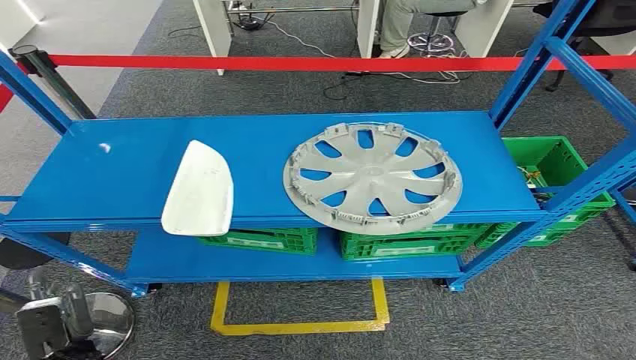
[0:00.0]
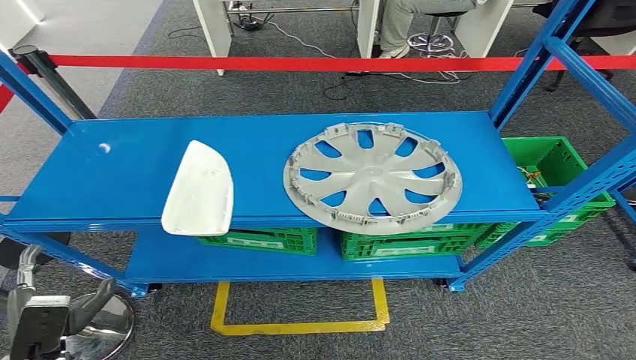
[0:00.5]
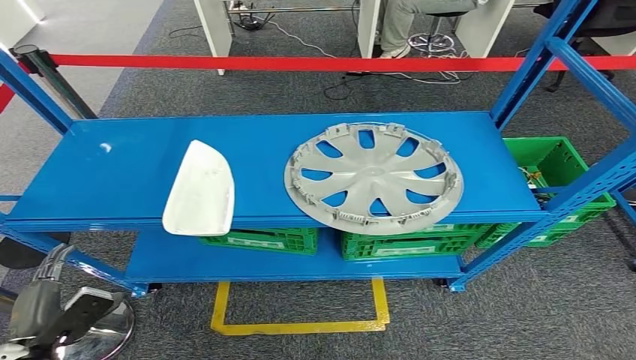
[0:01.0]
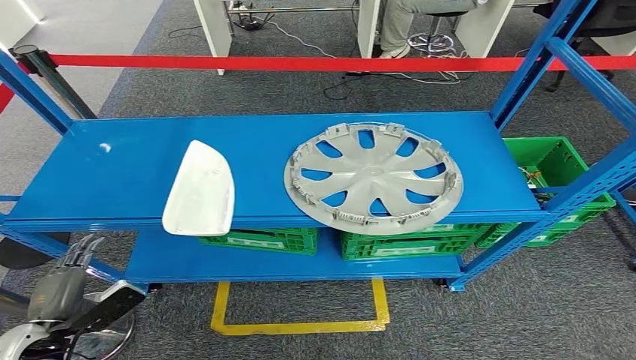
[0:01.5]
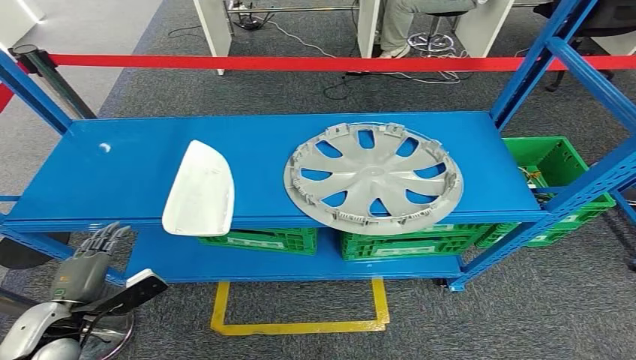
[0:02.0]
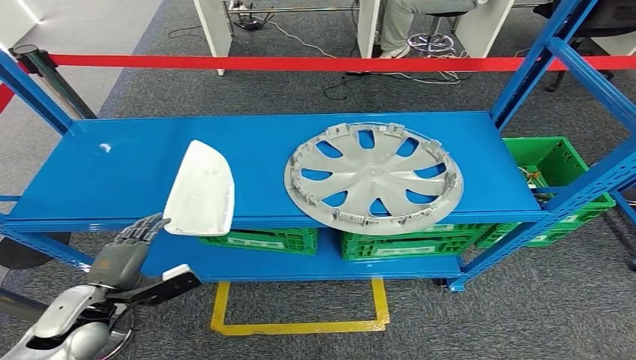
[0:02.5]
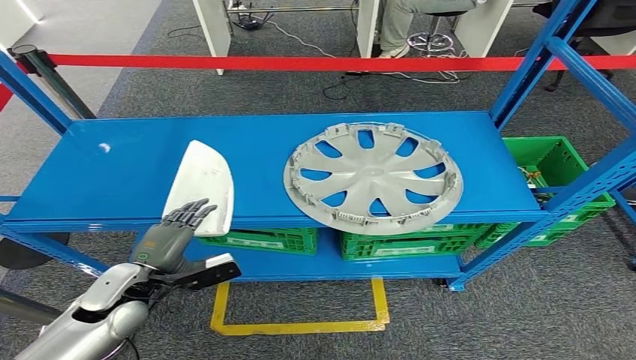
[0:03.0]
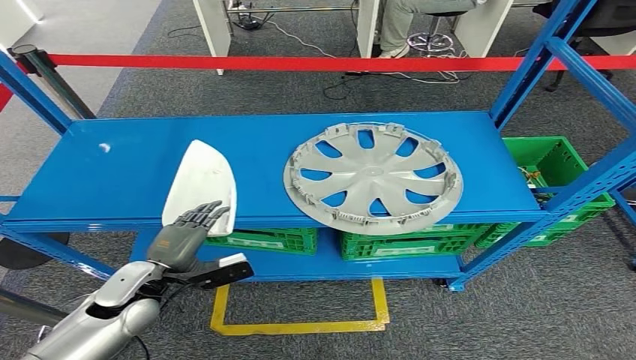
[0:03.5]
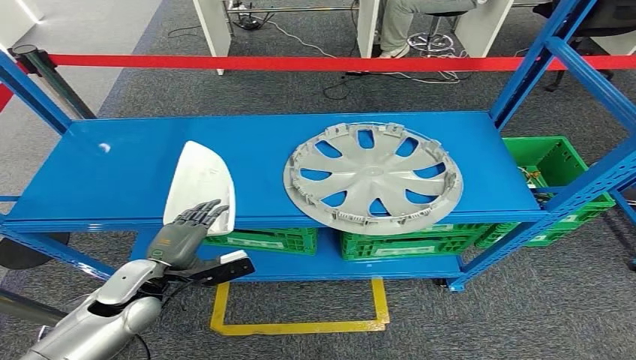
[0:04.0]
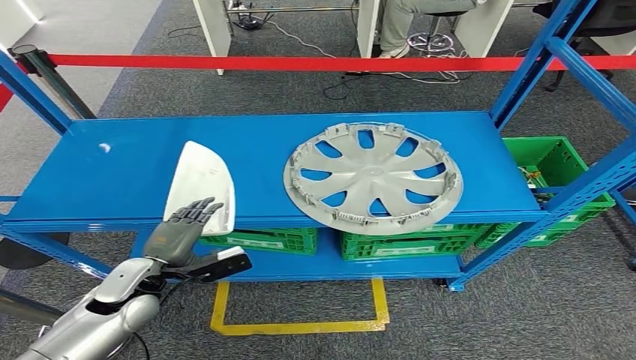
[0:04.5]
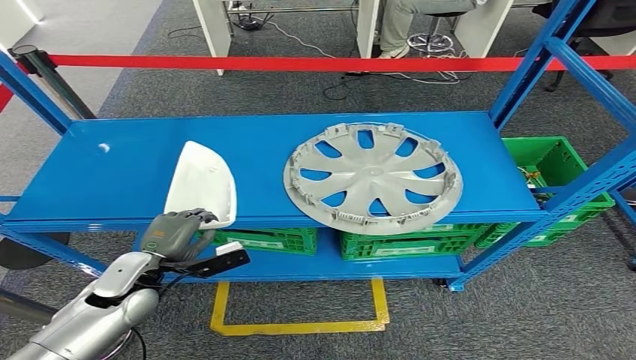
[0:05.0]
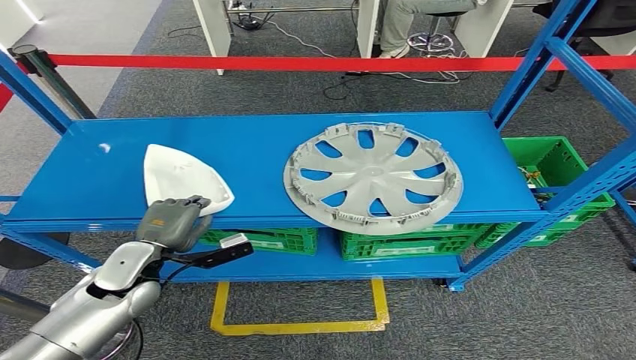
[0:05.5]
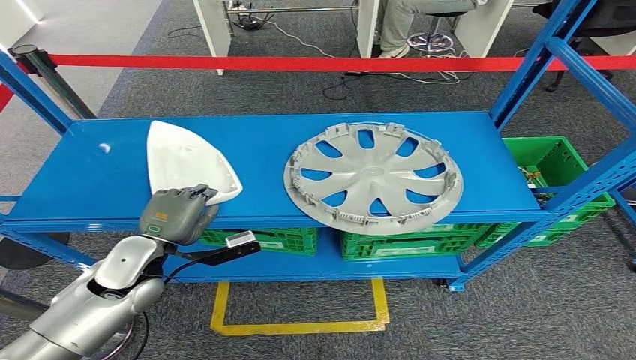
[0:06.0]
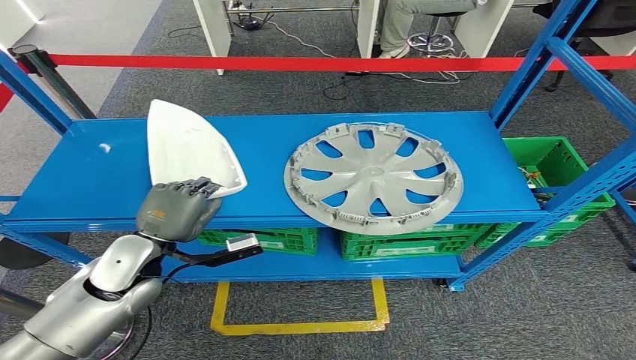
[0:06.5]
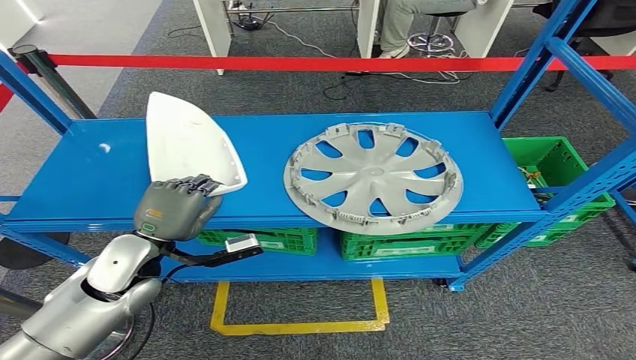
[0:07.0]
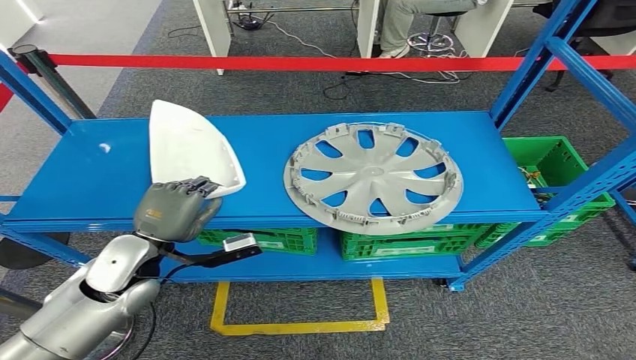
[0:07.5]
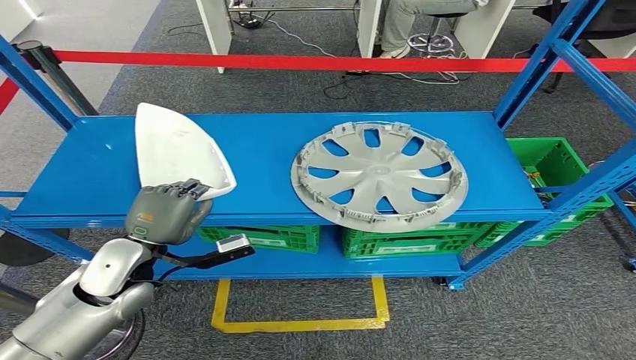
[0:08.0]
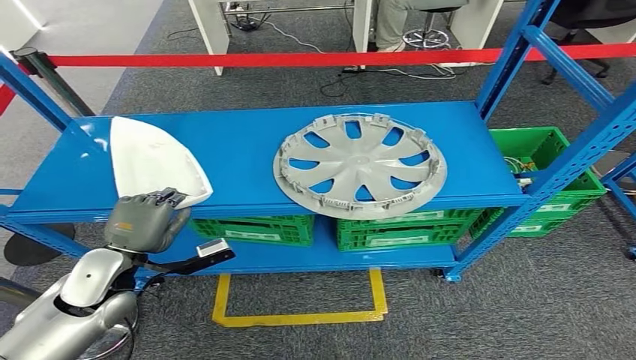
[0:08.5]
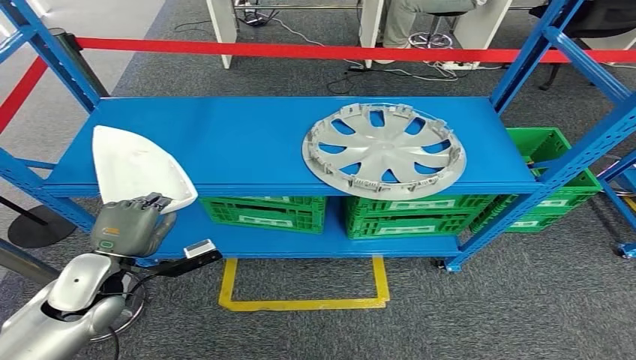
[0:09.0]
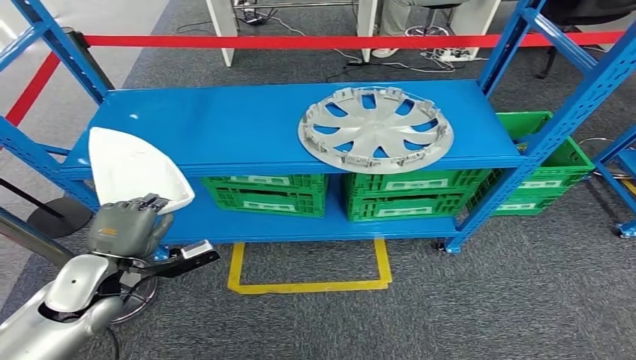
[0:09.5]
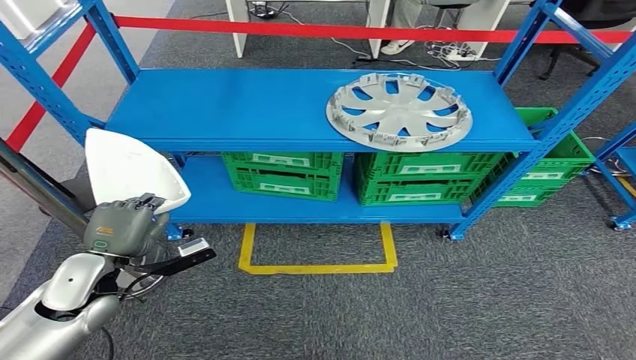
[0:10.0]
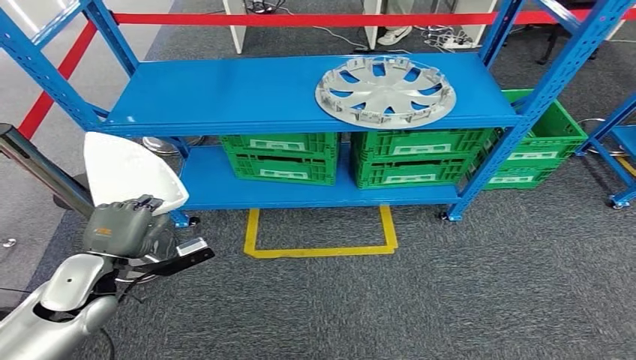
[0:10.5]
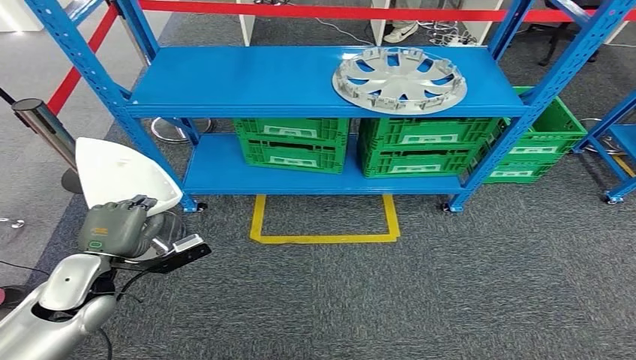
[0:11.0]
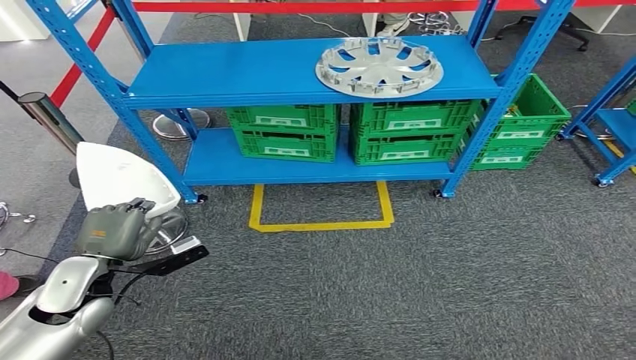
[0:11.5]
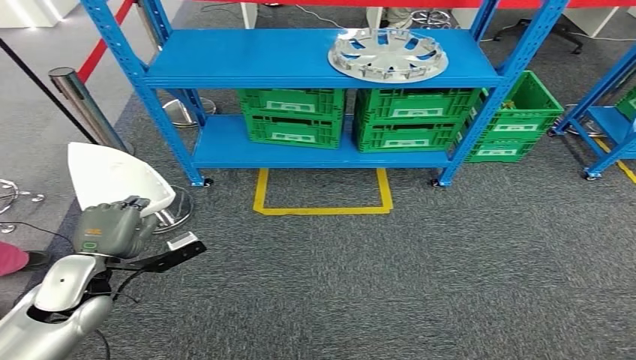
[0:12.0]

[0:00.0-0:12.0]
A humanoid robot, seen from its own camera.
Step, 0:00.0 to 0:09.5: Take small components from the rack.
0:02.0 to 0:04.0: The left hand is displaced to the right and forward by roughly 15 cm.
0:04.0 to 0:06.0: The left hand moves upward, approximately 5 cm.
0:06.0 to 0:08.0: The hands stay close to where they were, moving slightly.

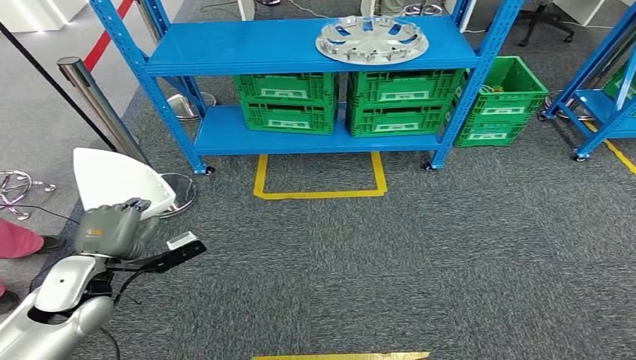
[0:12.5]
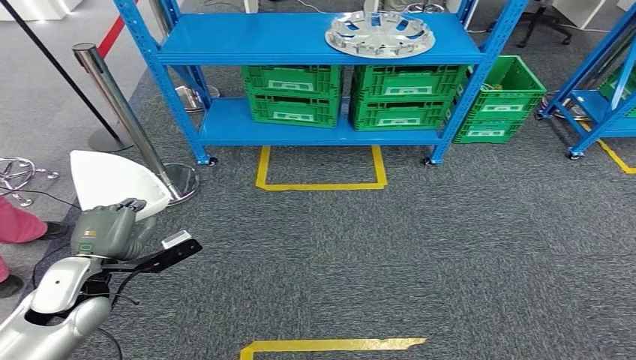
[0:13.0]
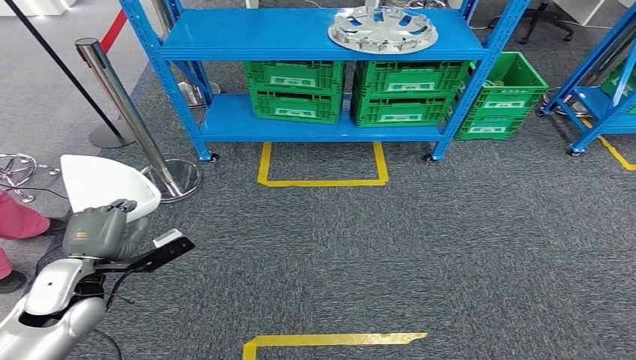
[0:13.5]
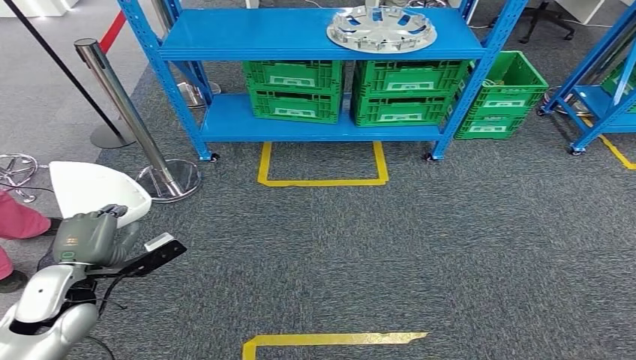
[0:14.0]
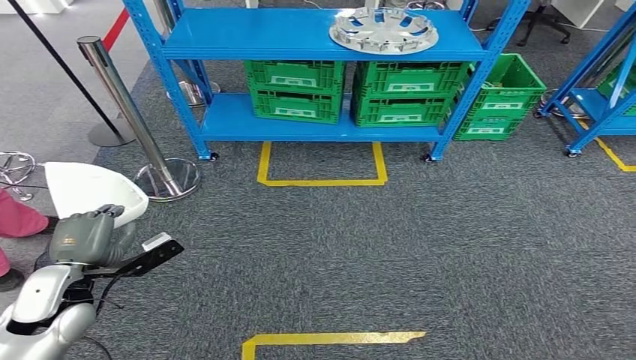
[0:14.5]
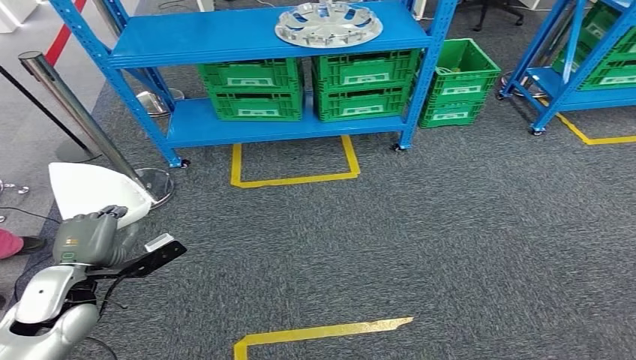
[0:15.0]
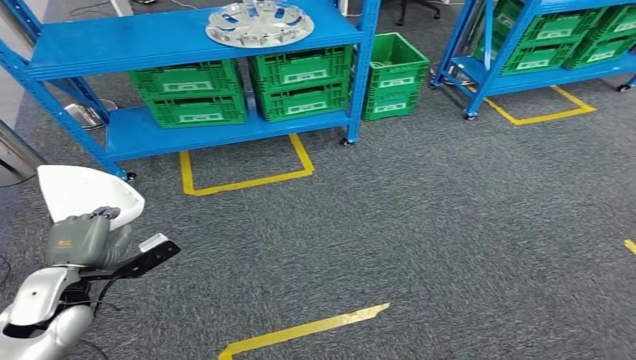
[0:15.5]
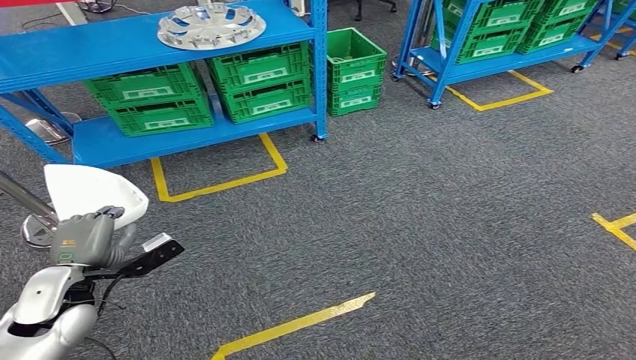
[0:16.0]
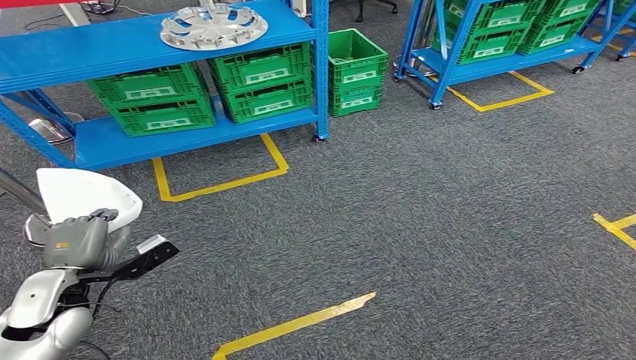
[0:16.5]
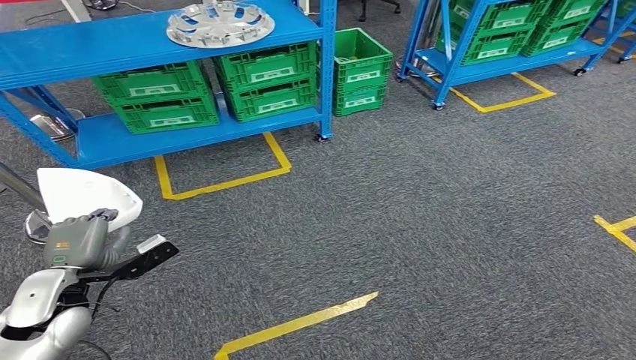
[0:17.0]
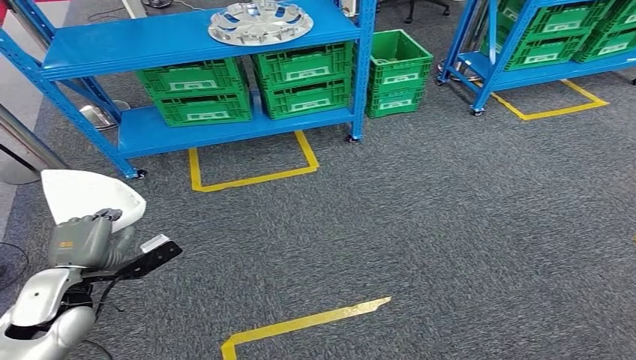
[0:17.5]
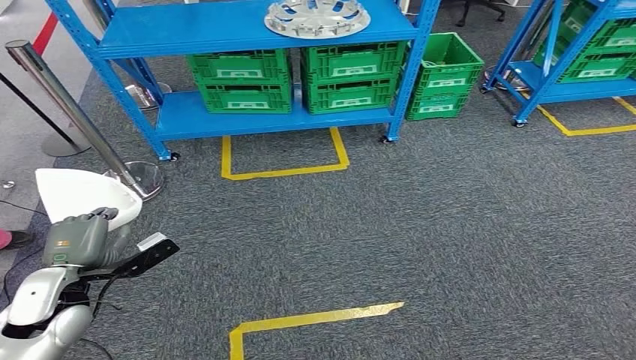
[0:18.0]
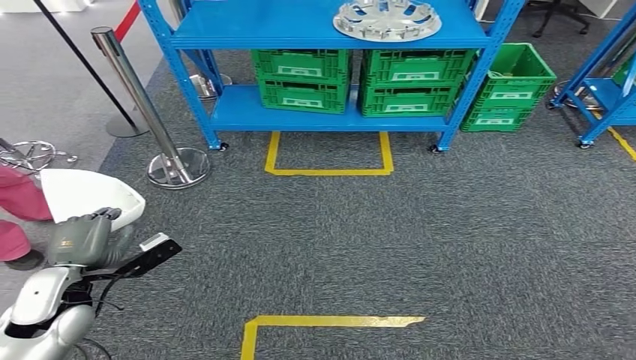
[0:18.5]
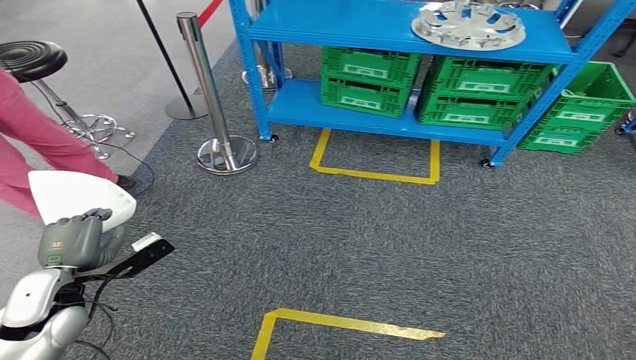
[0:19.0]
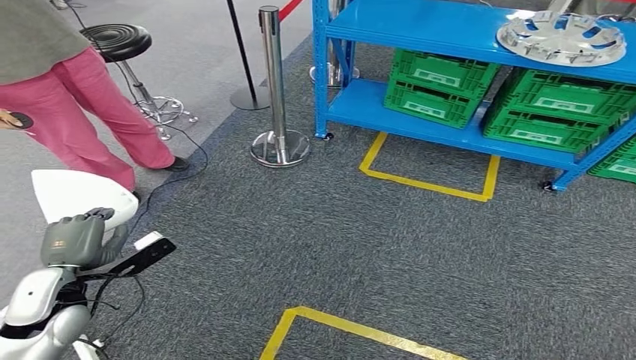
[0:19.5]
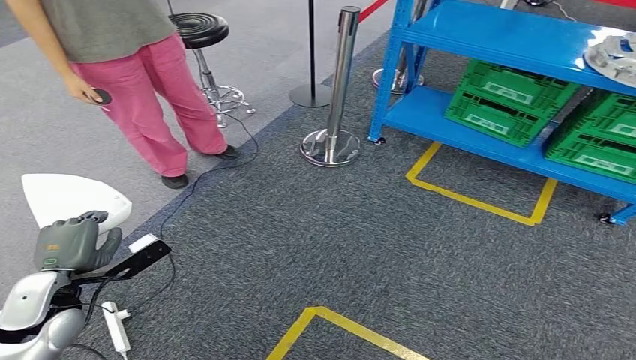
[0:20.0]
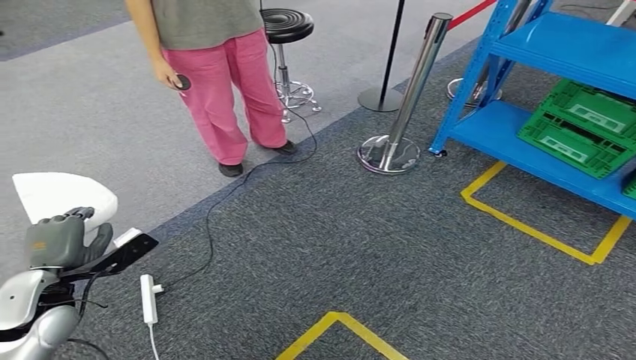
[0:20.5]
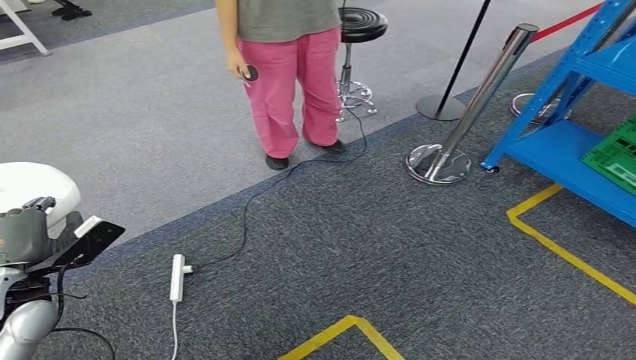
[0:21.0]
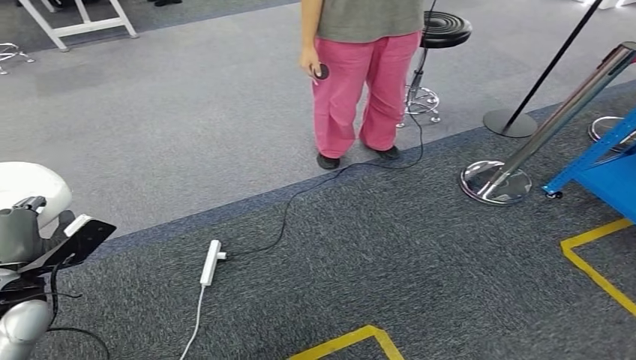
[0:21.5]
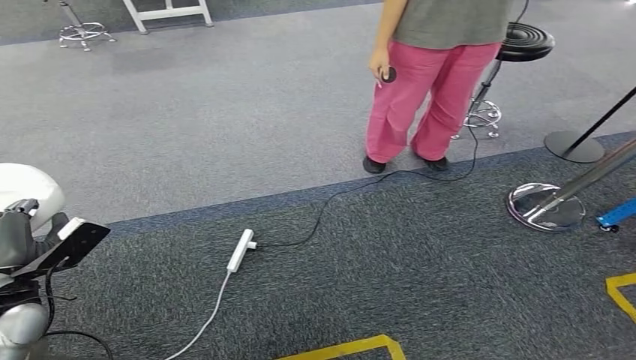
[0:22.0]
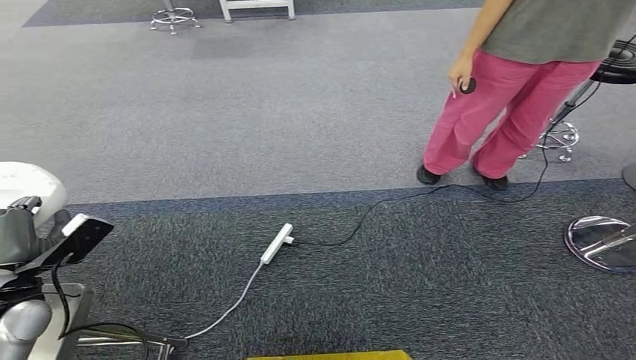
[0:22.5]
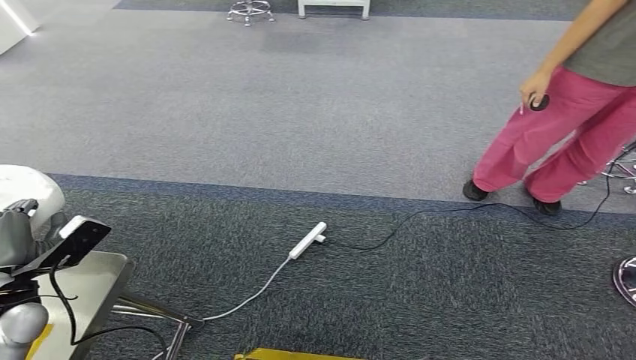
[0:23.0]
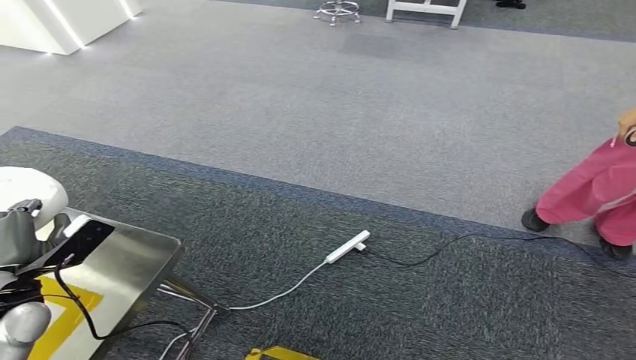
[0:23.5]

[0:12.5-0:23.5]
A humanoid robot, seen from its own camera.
Step, 0:12.5 to 0:23.0: Move the small parts to the workbench.
